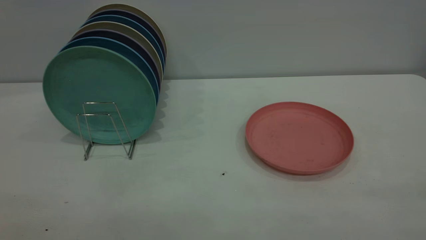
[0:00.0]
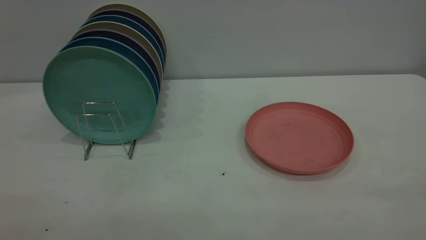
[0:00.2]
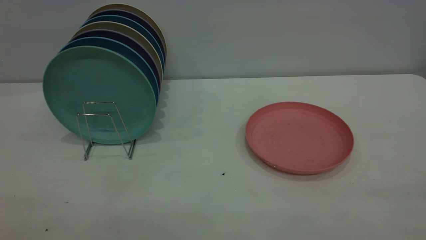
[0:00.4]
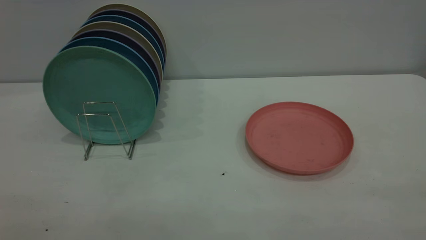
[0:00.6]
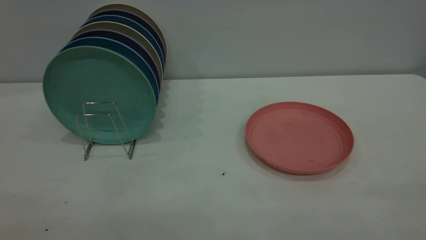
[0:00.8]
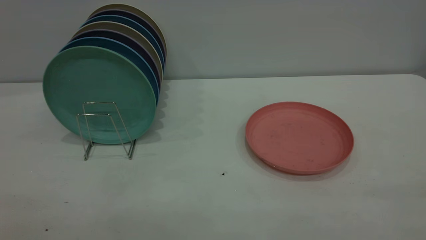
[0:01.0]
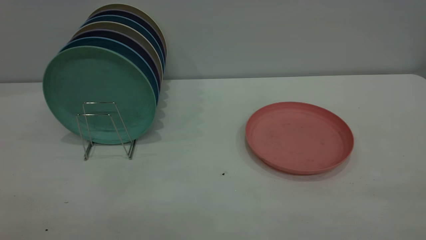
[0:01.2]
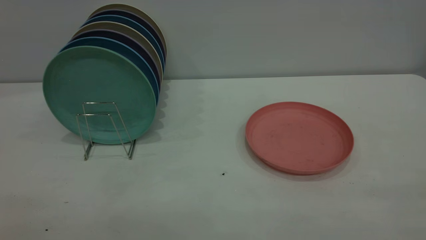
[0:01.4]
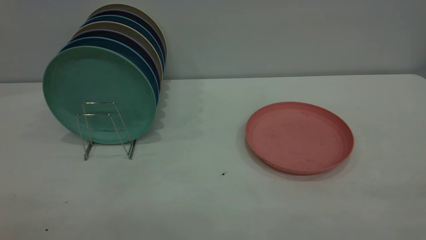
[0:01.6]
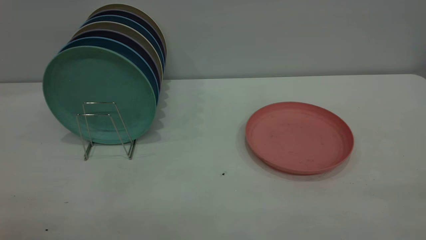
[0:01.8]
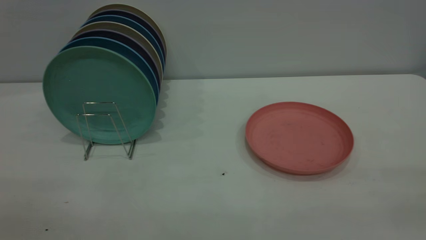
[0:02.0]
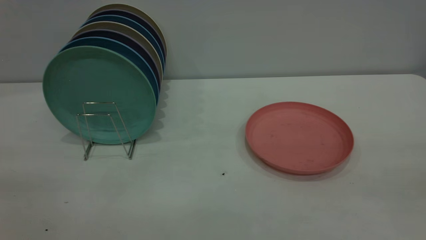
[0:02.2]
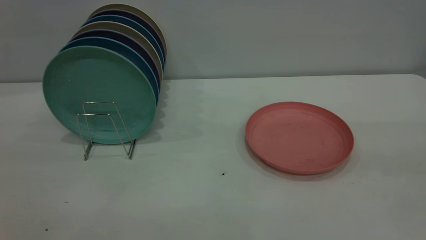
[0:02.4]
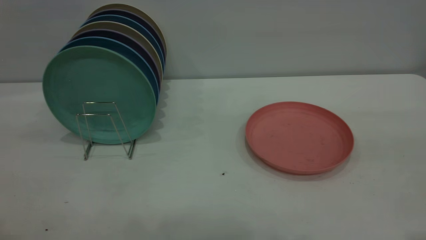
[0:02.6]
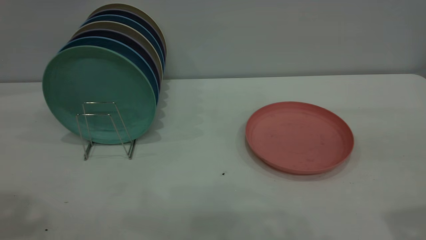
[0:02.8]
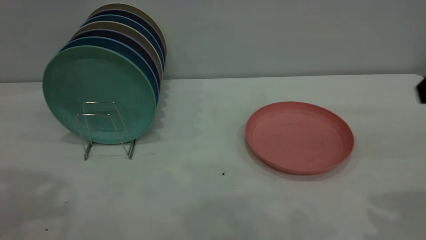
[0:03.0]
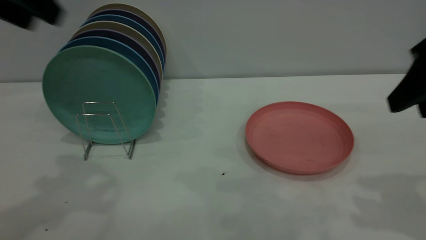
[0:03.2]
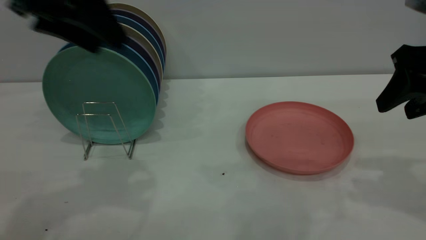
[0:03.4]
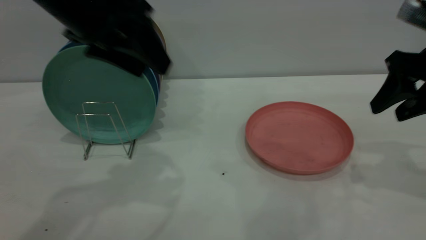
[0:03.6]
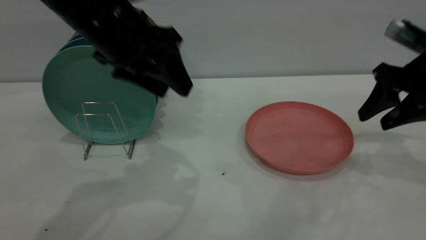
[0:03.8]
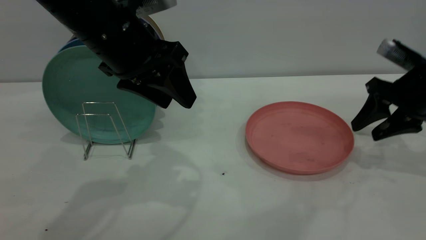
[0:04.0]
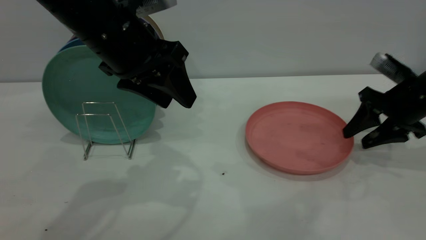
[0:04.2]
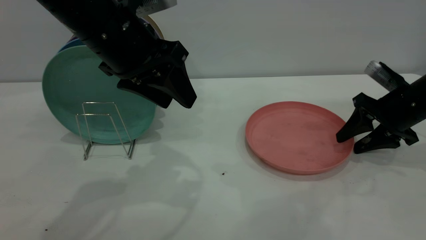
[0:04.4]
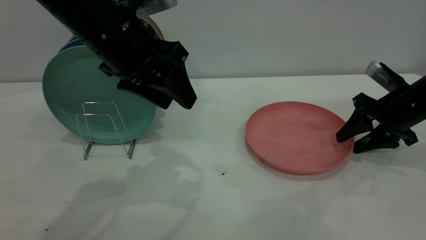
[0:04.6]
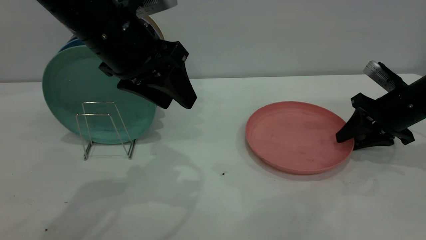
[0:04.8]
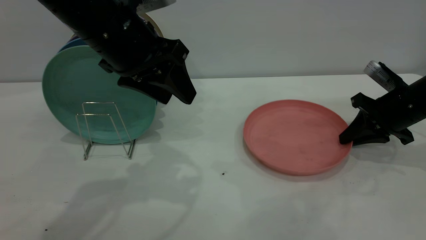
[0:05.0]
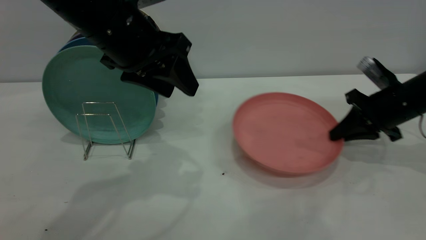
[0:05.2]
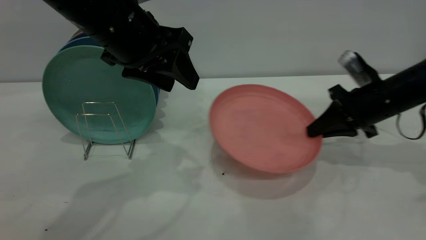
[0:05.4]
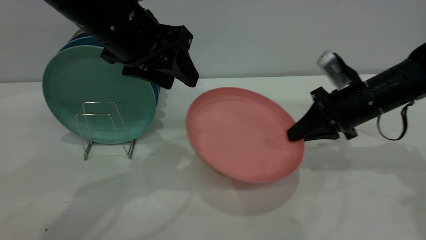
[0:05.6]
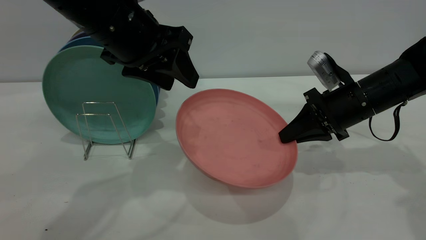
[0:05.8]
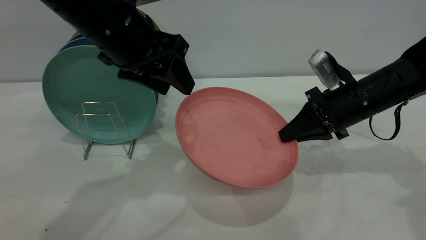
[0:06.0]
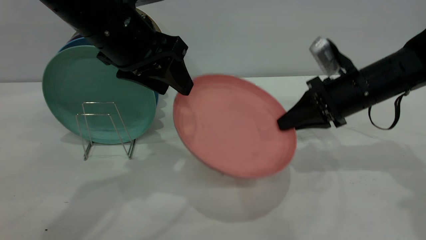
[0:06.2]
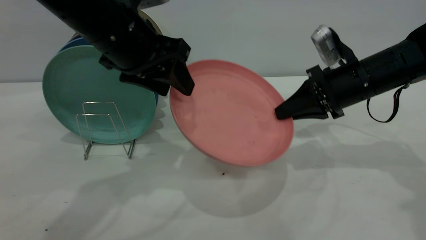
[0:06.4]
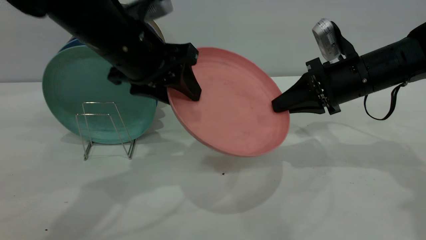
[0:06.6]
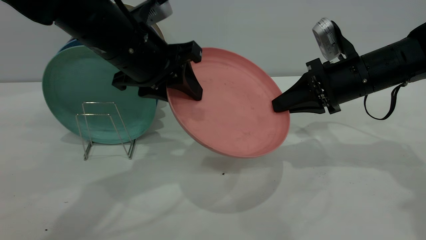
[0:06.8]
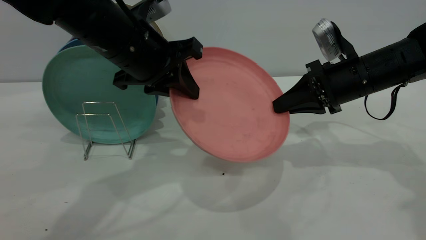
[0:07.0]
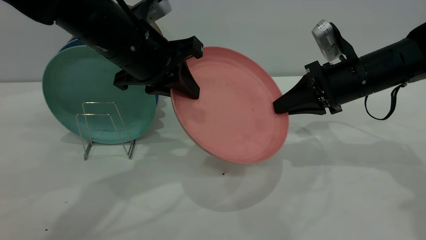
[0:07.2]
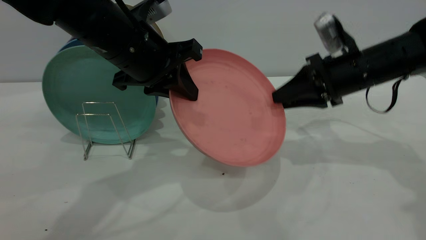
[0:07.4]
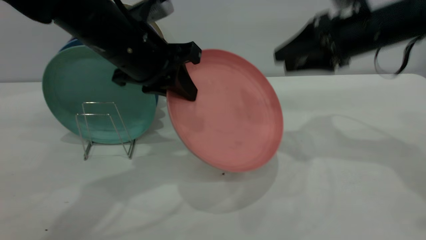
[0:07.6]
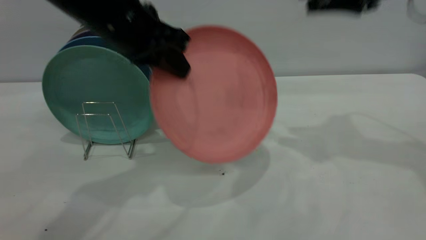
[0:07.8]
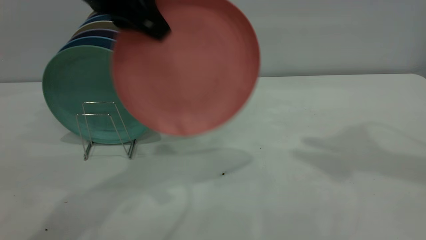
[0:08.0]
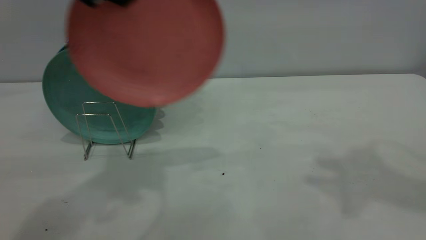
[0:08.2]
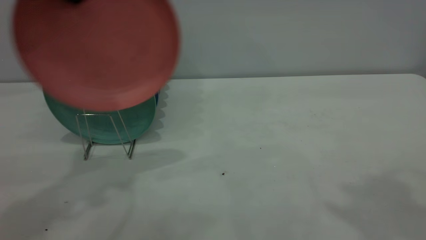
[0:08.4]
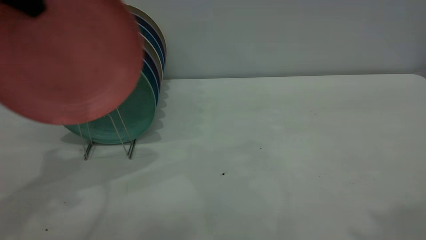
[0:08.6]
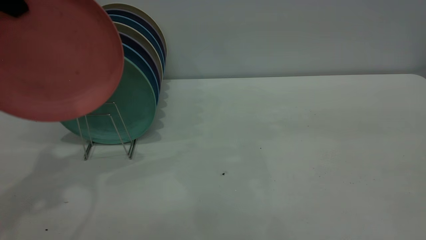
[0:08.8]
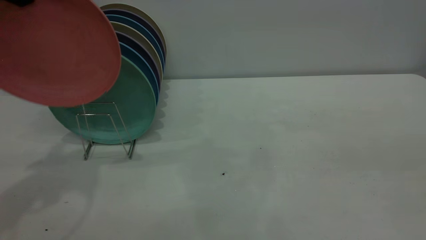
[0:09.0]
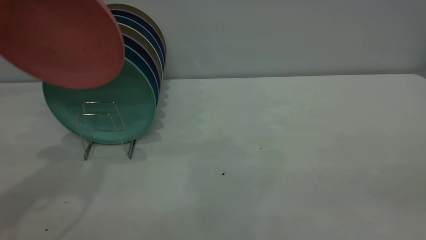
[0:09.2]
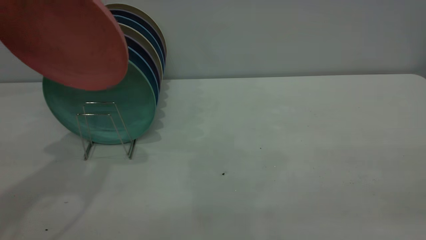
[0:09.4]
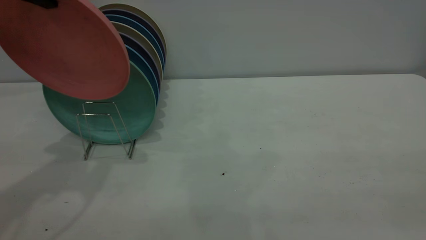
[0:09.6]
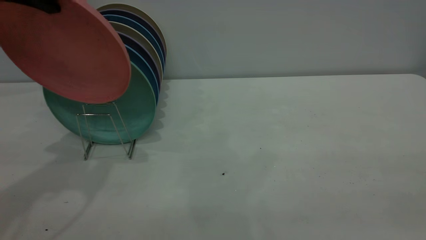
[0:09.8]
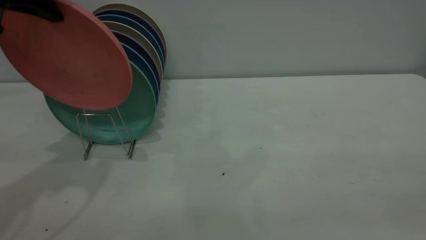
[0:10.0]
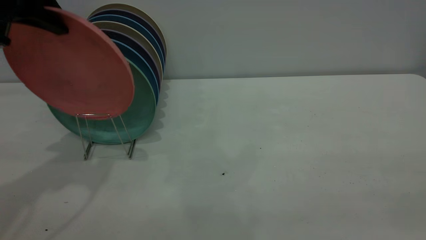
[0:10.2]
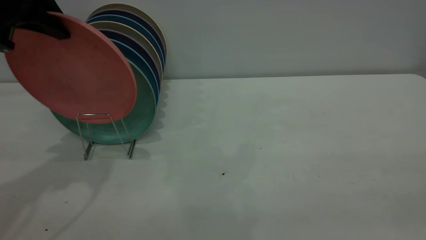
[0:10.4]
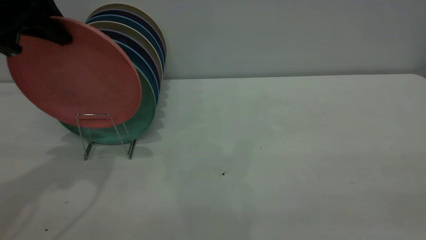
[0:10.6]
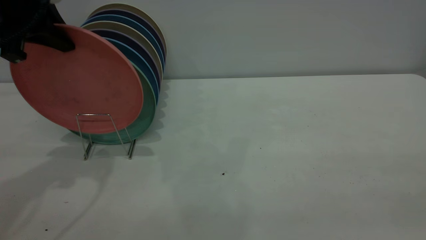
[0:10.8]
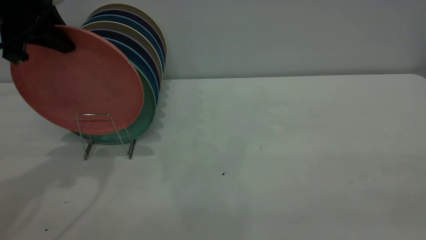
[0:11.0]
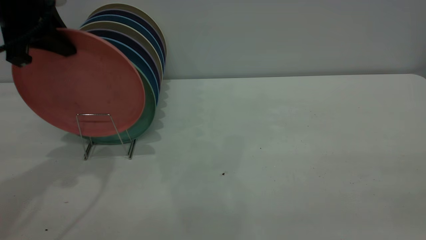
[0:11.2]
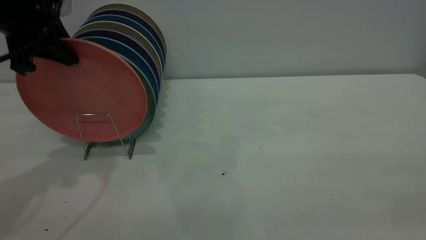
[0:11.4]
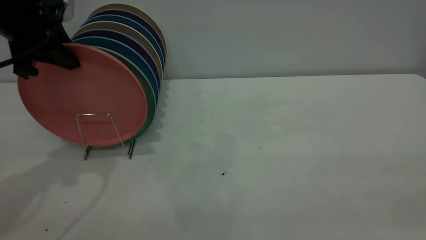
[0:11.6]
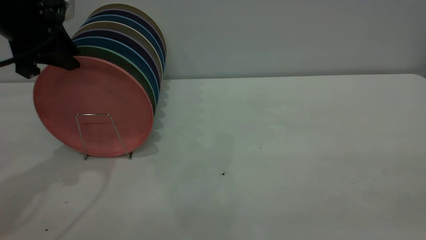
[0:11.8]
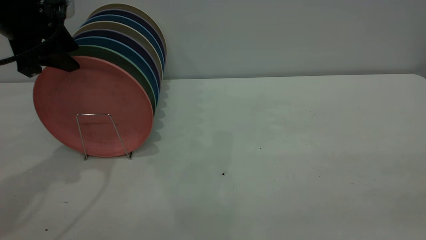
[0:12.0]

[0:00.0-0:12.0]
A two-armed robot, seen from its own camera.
Task of the whole recording: the right gripper grasp the pink plate, the right gripper pass the pink plate to the left gripper, and the left gripper place the pink plate on the plate rack.
Step, 0:00.0 to 0:05.2: Pick up the plate with the right gripper.
Step, 0:05.4 to 0:07.4: Pass the plate from the right gripper to the left gripper.
0:00.0 to 0:01.6: Both grippers stay put.
0:03.0 to 0:04.4: The left gripper shifts roughly 20 cm to the right and downward. Meanwhile the right gripper moves downward and forward, approximately 25 cm.
0:04.4 to 0:06.0: The right gripper heads to the left, covering some 10 cm, and closes its fingers.
0:06.0 to 0:07.6: The right gripper travels upward by about 10 cm, and opens up, while the left gripper closes up.
0:07.6 to 0:09.0: The left gripper moves to the left and upward, some 20 cm; the right gripper moves backward and upward, roughly 40 cm.
0:09.0 to 0:10.4: The left gripper moves downward, approximately 5 cm.
0:10.4 to 0:12.0: The left gripper opens up.

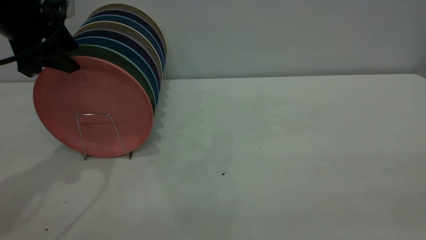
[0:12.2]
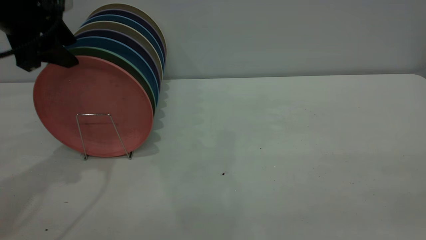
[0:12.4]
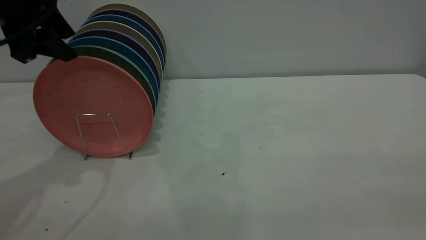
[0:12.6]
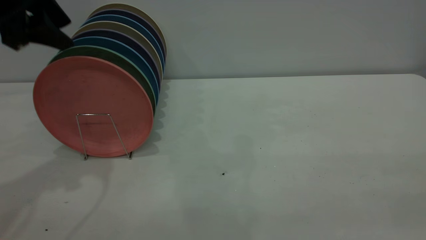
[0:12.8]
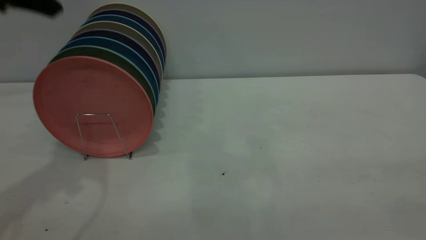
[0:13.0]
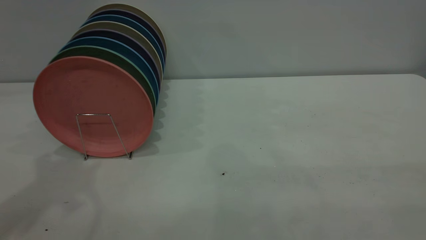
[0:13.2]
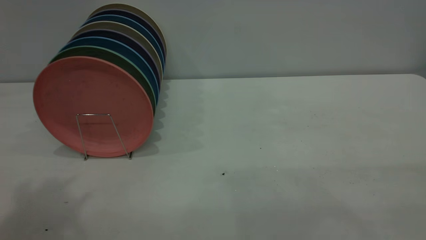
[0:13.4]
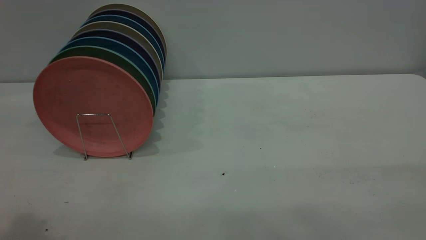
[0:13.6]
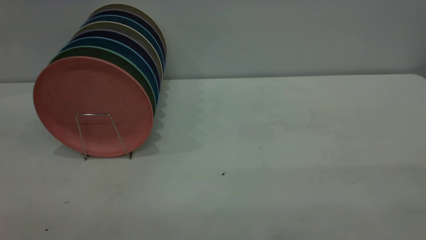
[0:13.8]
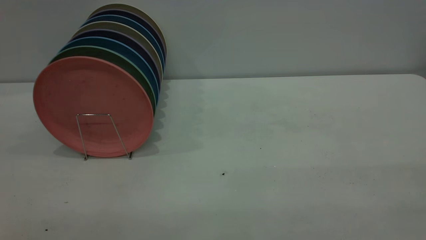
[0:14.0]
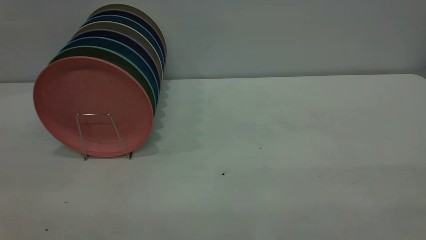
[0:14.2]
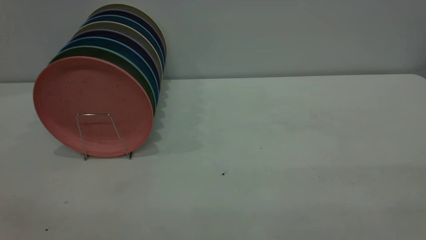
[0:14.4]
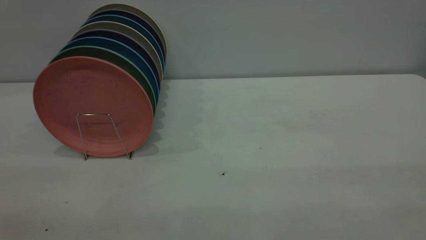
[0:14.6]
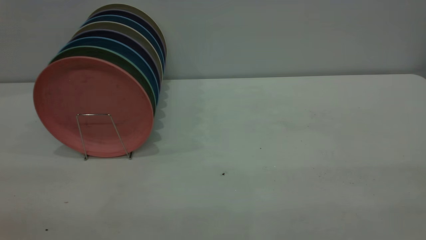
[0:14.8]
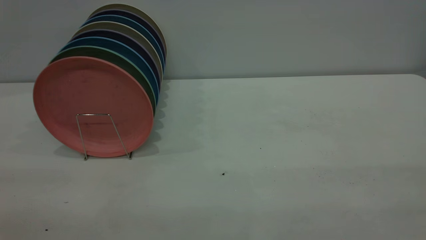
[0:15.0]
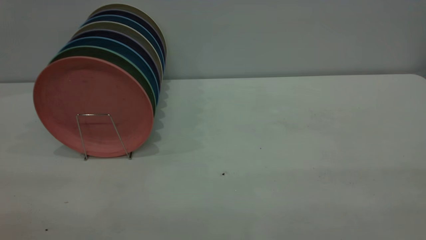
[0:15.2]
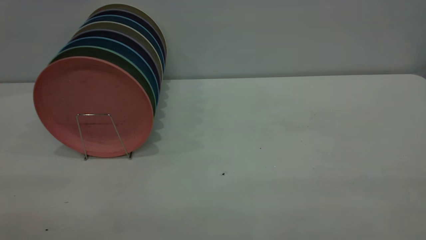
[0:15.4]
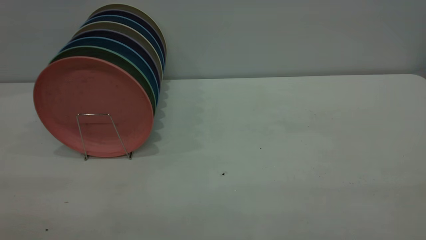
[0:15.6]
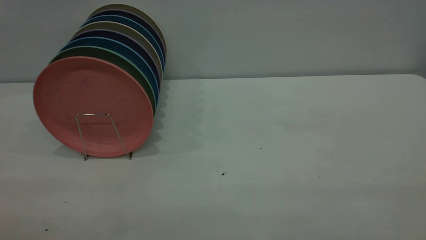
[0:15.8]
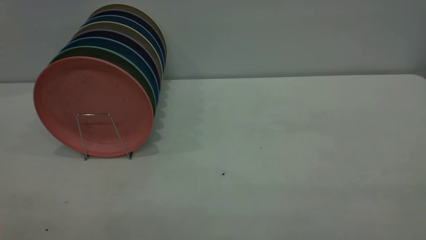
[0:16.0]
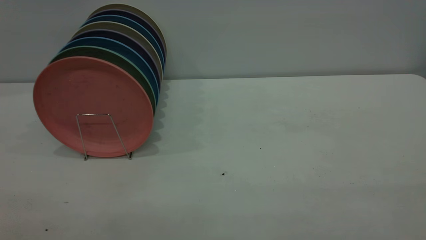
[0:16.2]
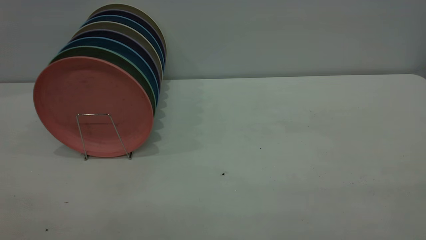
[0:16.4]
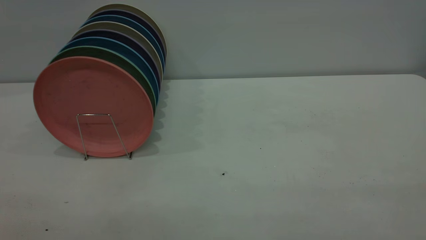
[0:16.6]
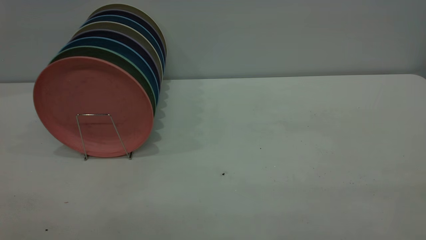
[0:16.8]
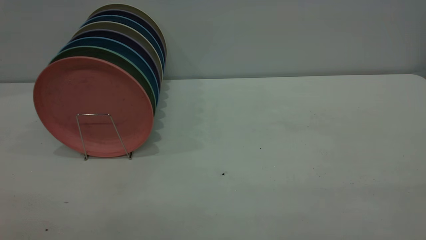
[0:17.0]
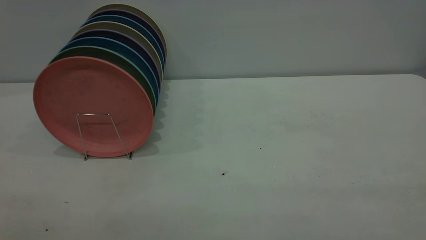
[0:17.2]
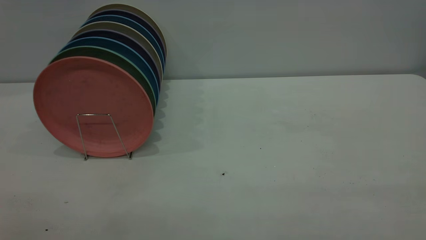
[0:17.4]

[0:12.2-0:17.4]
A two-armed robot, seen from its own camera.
Task of the whole recording: the right gripper grasp the pink plate, the right gripper pass the pink plate to the left gripper, and the left gripper place the pink plate on the plate rack.
0:12.2 to 0:14.0: The left gripper heads backward and upward, covering some 35 cm.
